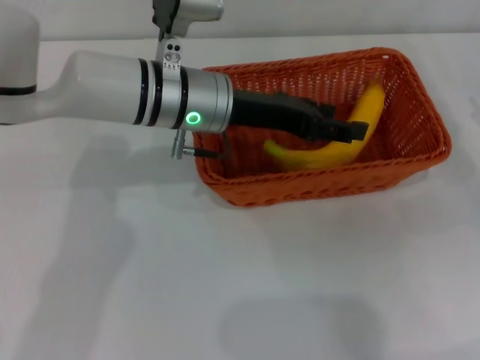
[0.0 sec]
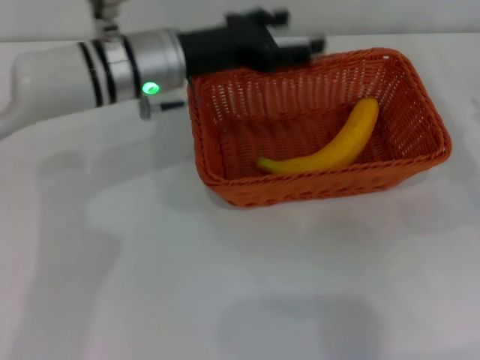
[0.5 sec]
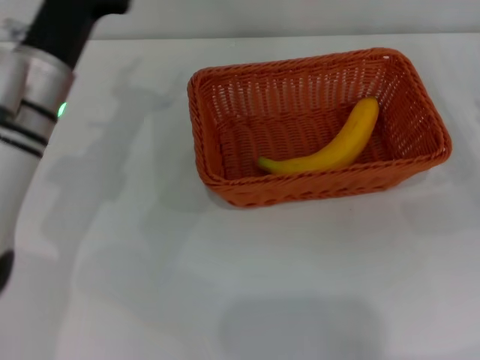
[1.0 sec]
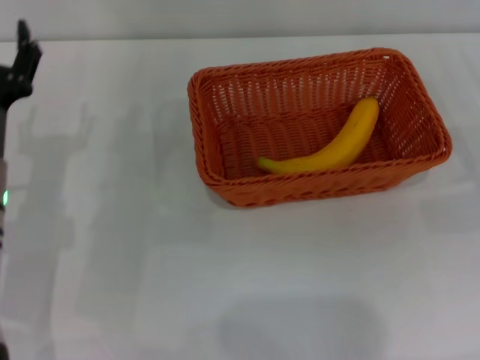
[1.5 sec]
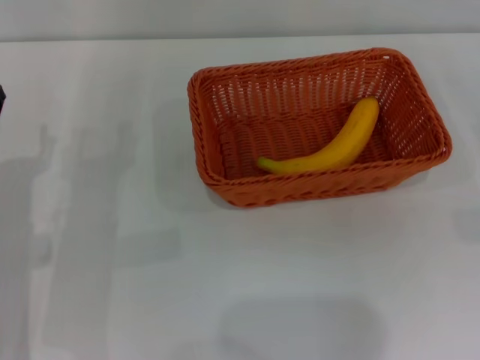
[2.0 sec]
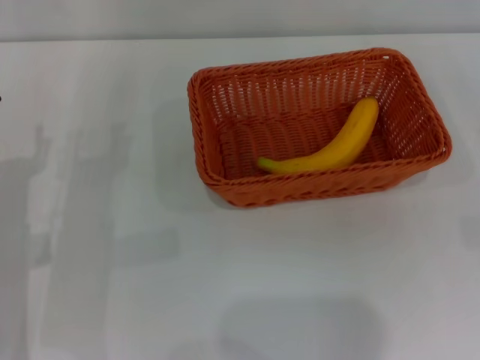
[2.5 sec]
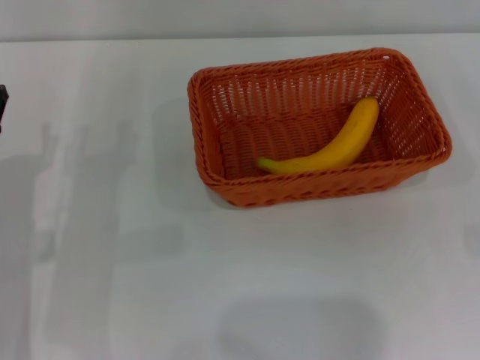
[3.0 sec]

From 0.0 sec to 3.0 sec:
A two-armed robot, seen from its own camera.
From 0.0 sec to 1.5 sec: The left gripper heads to the left, backward and downward, covering some 20 cm, and opens.

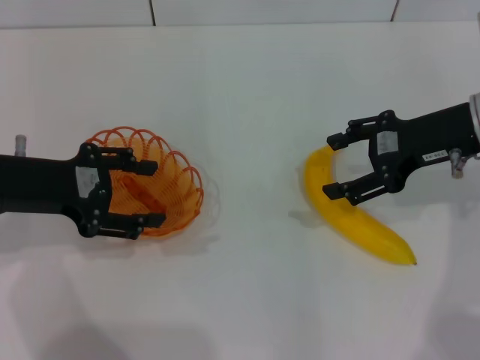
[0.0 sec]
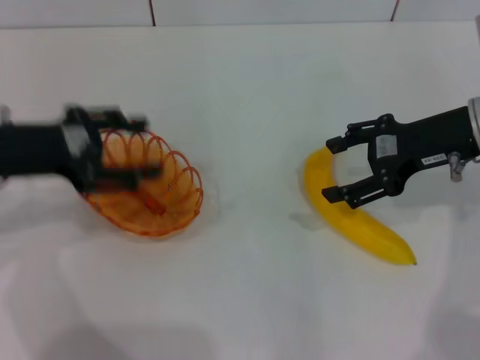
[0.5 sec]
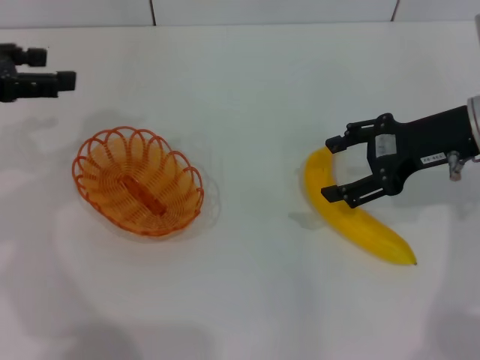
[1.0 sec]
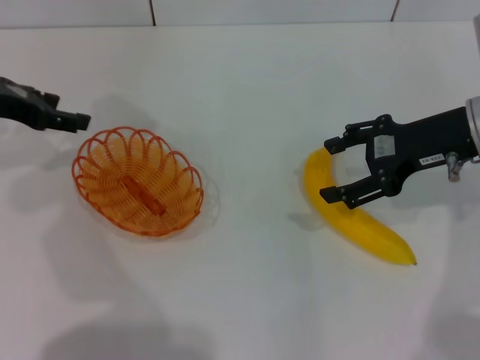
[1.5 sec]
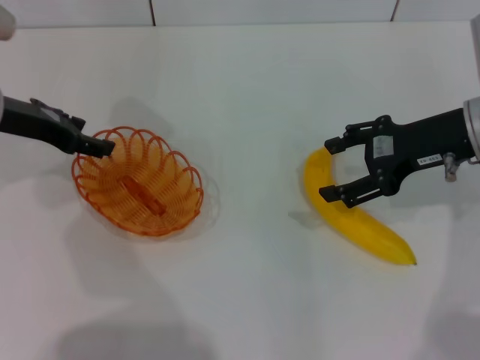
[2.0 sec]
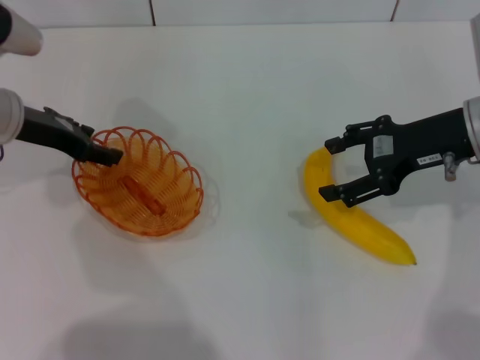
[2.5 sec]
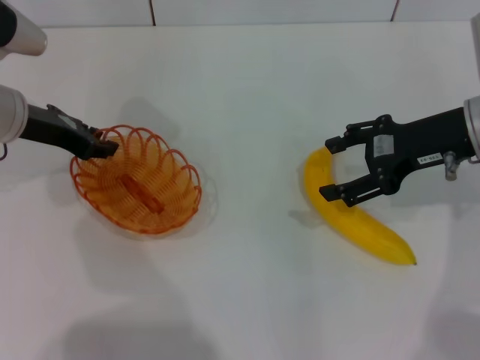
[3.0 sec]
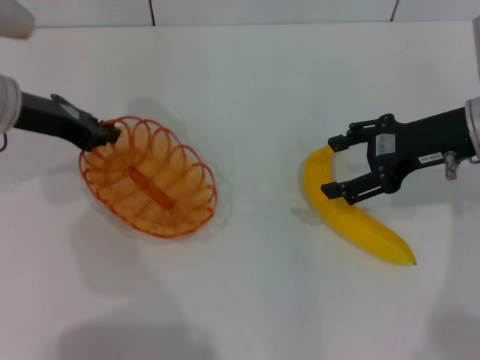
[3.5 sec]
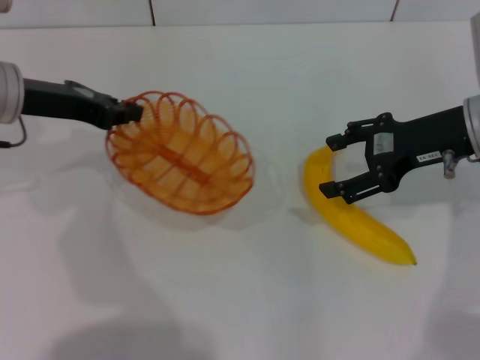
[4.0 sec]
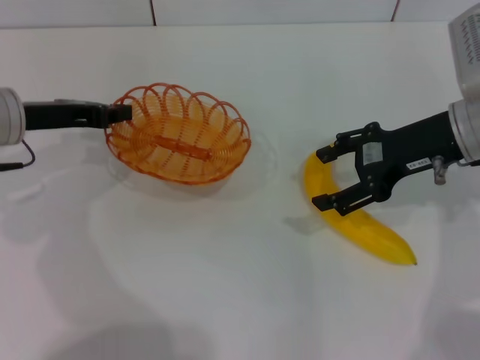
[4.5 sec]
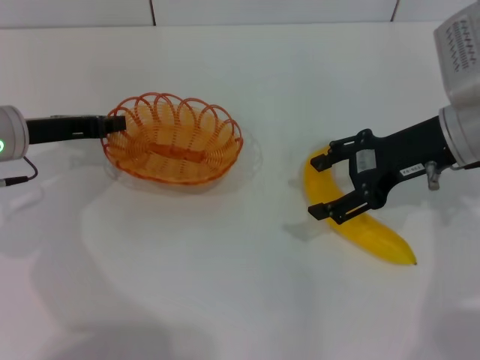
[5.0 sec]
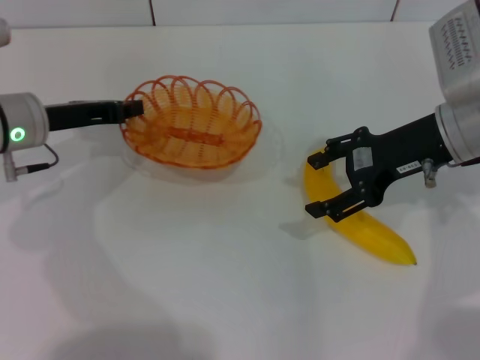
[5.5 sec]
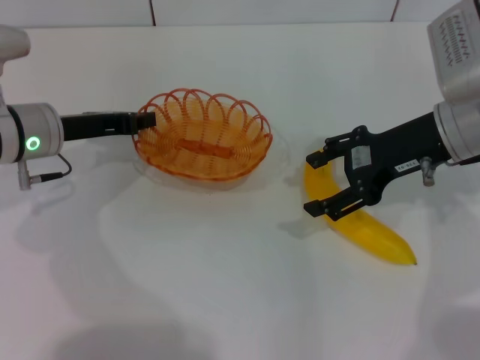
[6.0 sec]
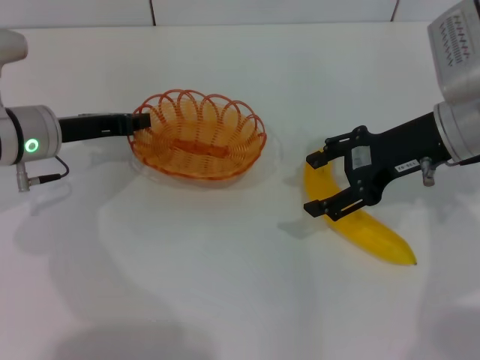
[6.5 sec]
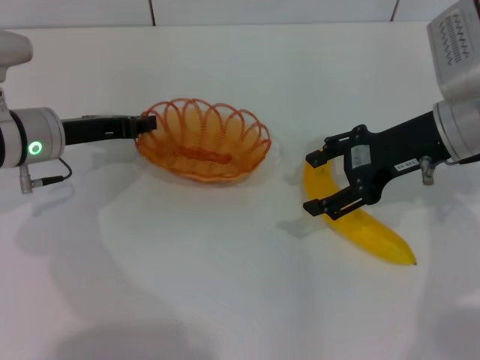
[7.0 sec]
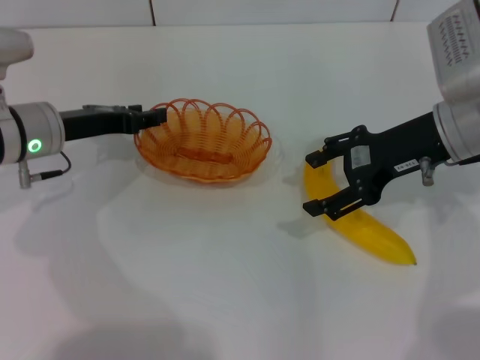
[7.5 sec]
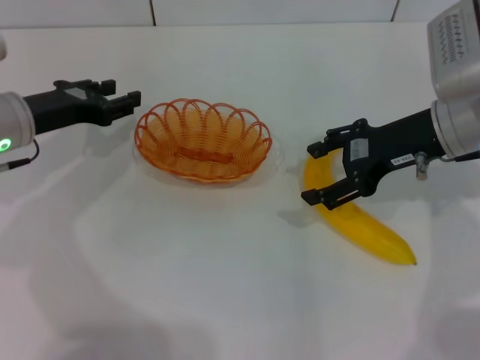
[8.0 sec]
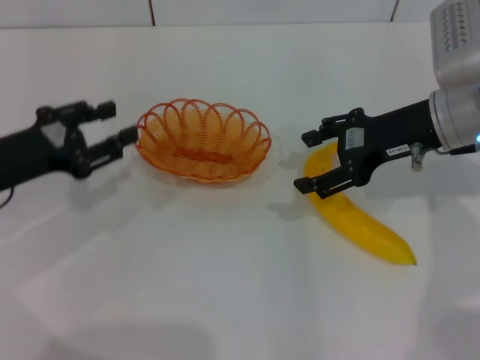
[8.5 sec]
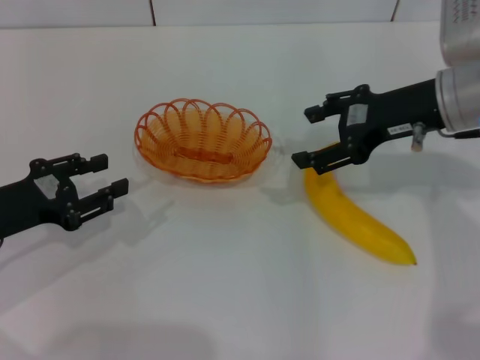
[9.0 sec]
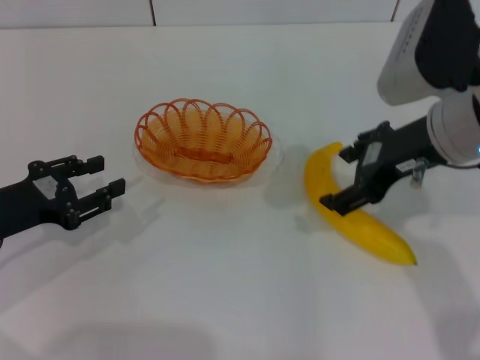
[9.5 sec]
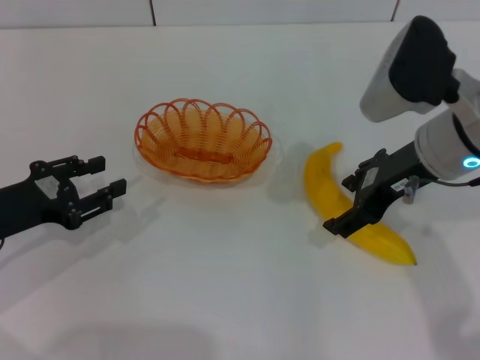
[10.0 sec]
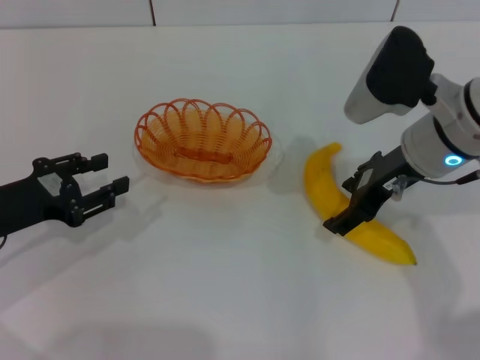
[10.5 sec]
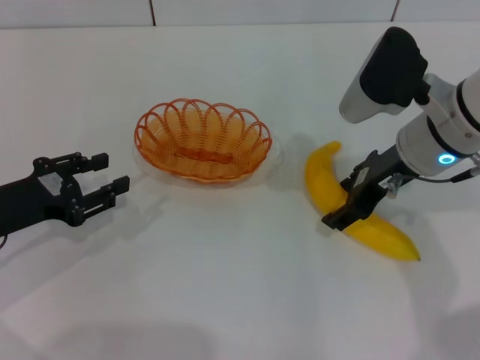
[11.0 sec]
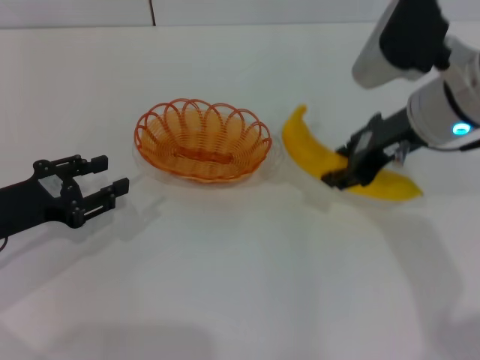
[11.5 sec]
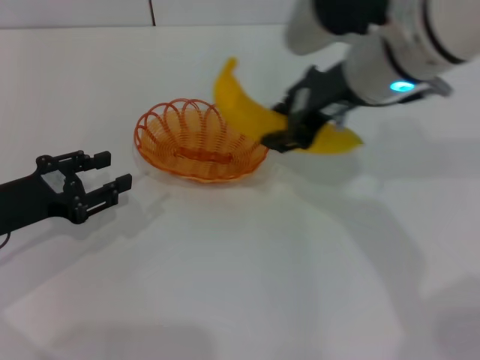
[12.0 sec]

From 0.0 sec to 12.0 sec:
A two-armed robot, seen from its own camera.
Step, from 0.0 sec to 3.5 sec: Pick up the basket with the left gripper.
Step, from 4.0 sec to 7.5 sec: Place the basket in the center of view with the left gripper.
Step, from 8.0 sec to 11.5 sec: Pick up the banana with the right gripper.
From 0.0 sec to 2.0 sec: The left gripper heads forward, covering about 10 cm.
From 2.0 sec to 4.0 sec: The left gripper closes.
From 4.0 sec to 6.0 sec: The left gripper heads downward, covering approximately 5 cm.
From 6.0 sec to 8.0 sec: The left gripper opens its fingers.
From 8.0 sec to 10.0 sec: The right gripper shifts by about 5 cm; the left gripper shifts roughly 10 cm backward.
From 10.0 sec to 12.0 sec: The right gripper shifts about 5 cm to the left, and closes.

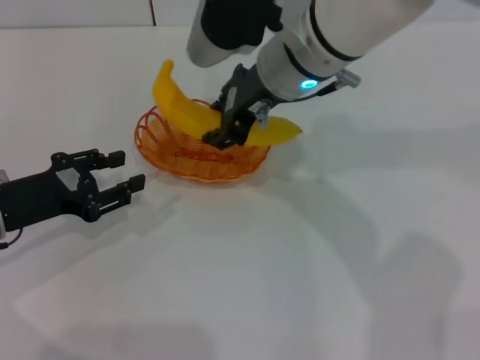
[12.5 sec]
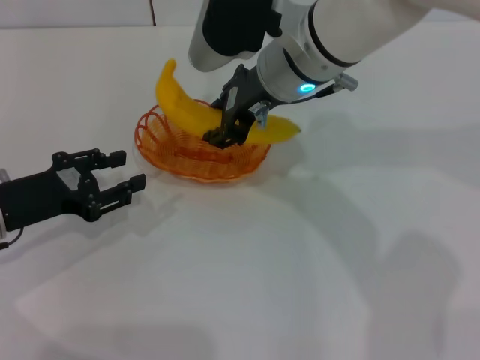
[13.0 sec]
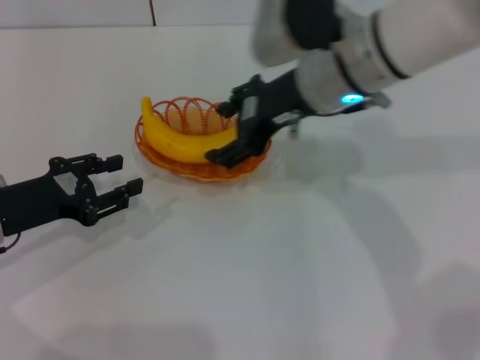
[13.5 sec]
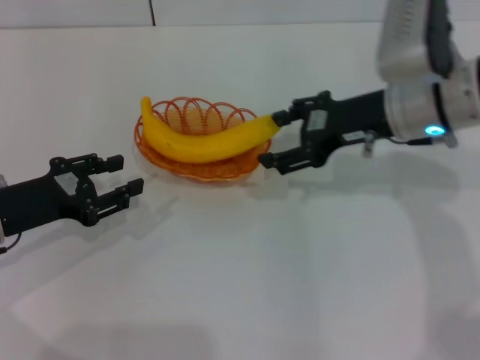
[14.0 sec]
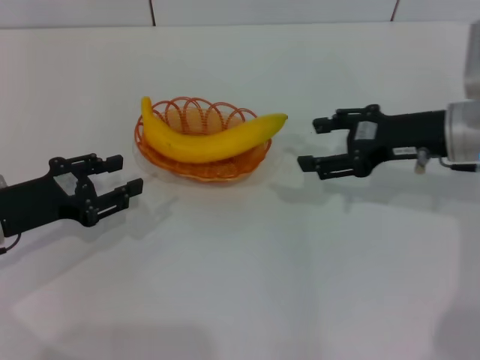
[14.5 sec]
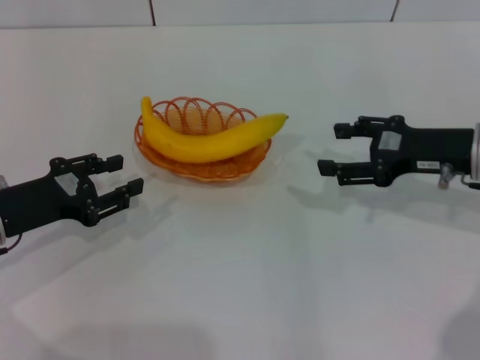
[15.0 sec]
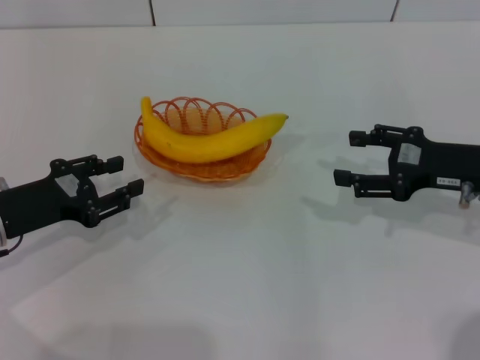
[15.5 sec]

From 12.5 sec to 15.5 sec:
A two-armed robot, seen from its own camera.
Step, from 12.5 sec to 13.5 sec: Place the banana into the basket with the right gripper.
From 12.5 sec to 14.0 sec: The right gripper heads to the right, covering roughly 15 cm, and opens.
From 14.0 sec to 15.5 sec: The right gripper goes about 15 cm to the right, backward and downward.
